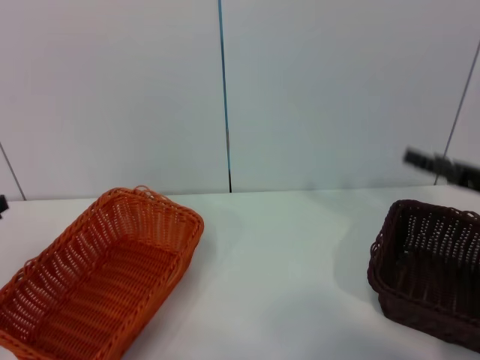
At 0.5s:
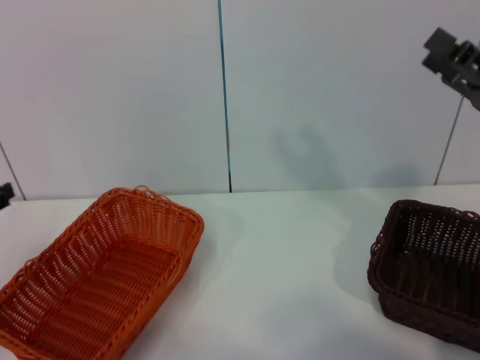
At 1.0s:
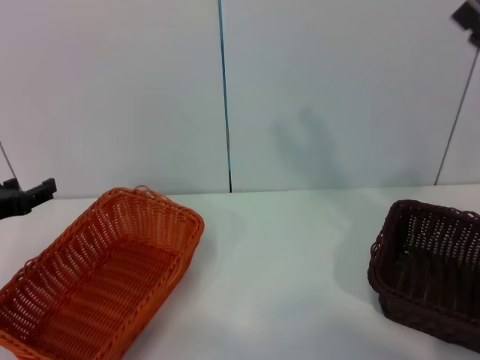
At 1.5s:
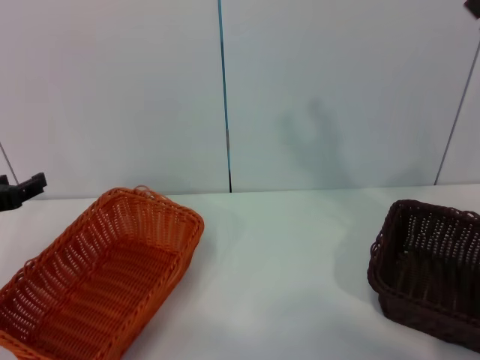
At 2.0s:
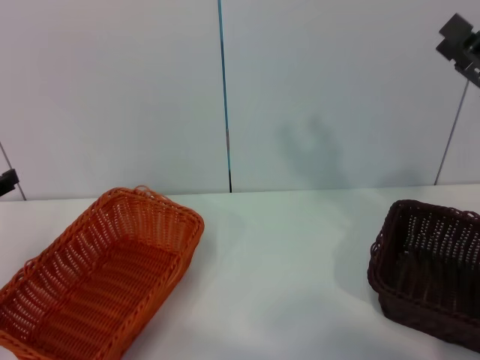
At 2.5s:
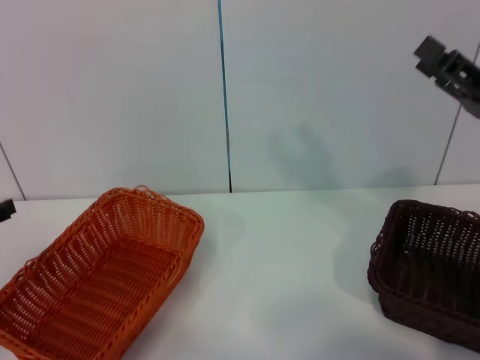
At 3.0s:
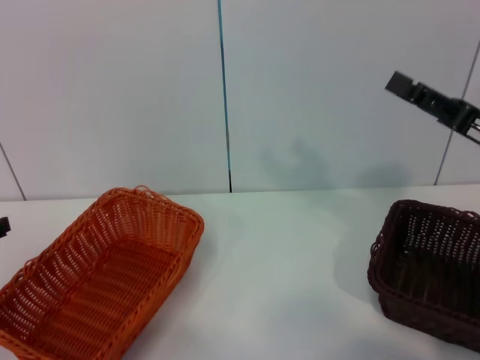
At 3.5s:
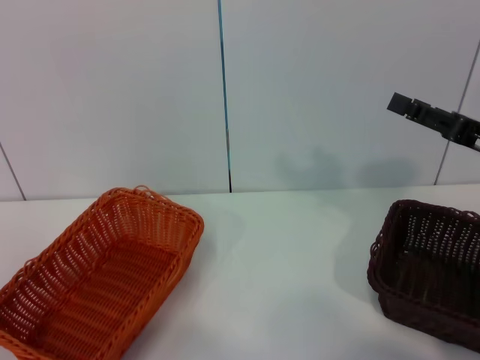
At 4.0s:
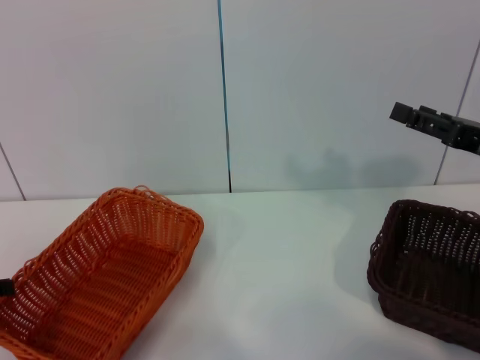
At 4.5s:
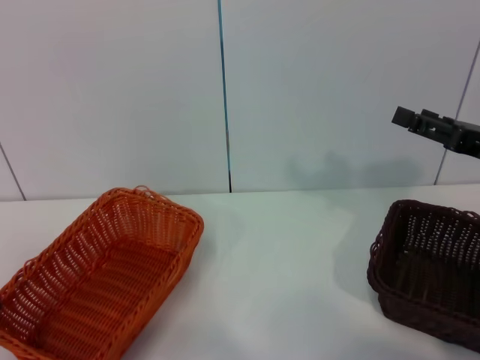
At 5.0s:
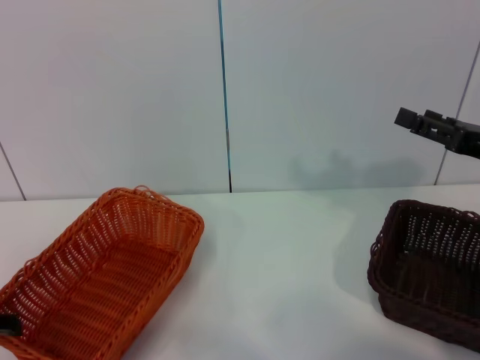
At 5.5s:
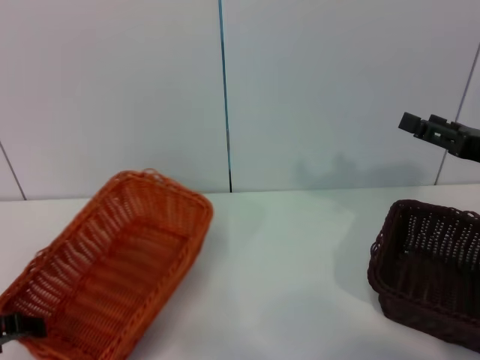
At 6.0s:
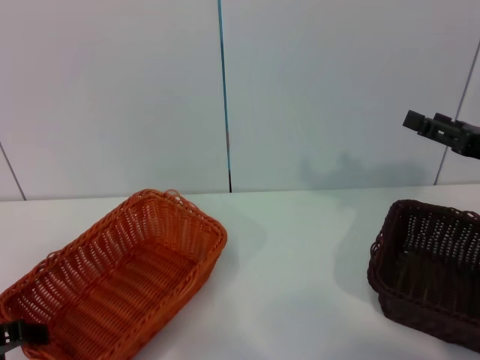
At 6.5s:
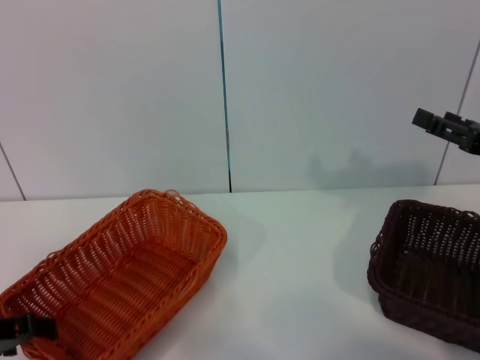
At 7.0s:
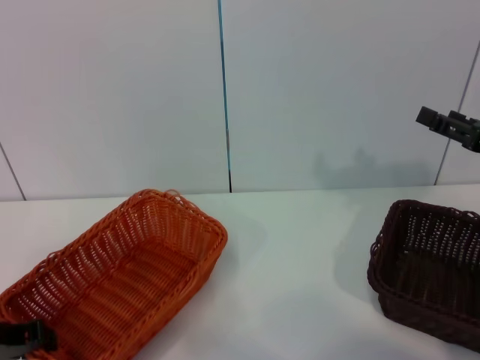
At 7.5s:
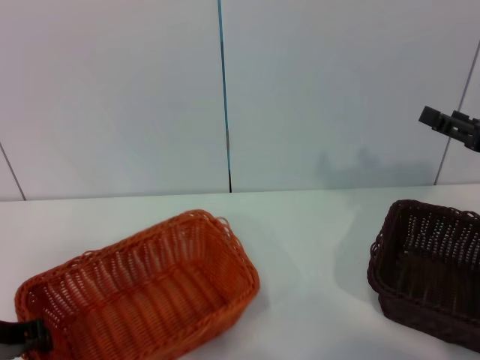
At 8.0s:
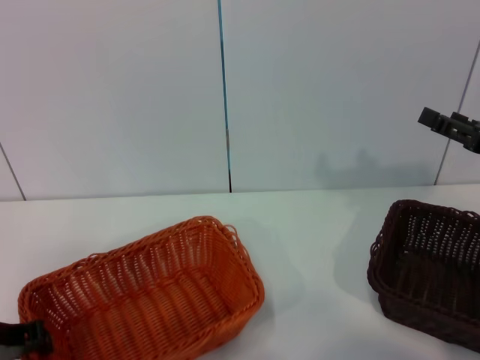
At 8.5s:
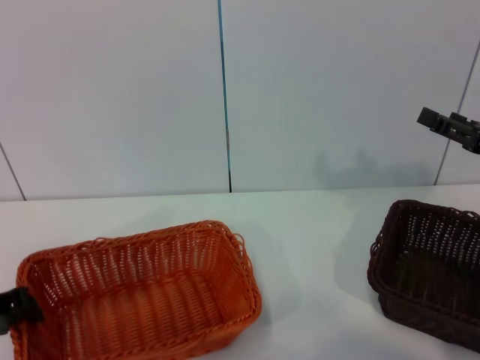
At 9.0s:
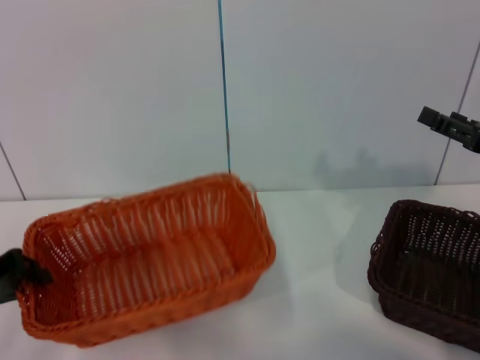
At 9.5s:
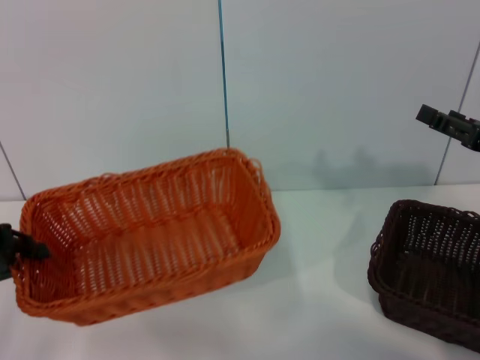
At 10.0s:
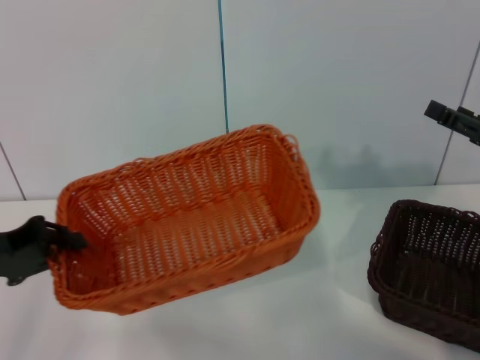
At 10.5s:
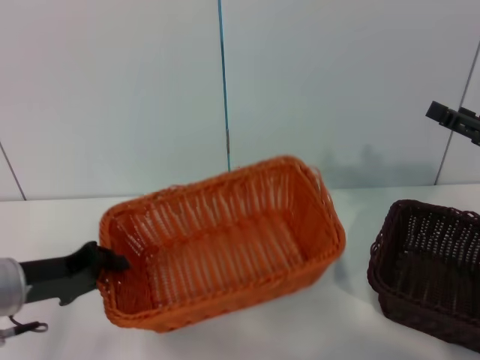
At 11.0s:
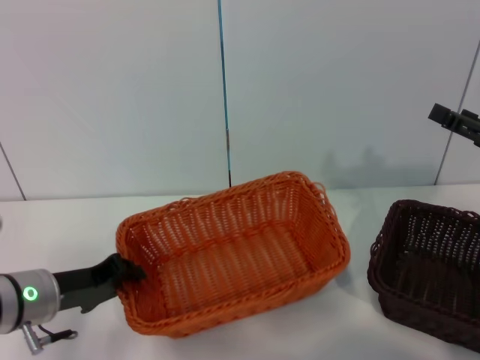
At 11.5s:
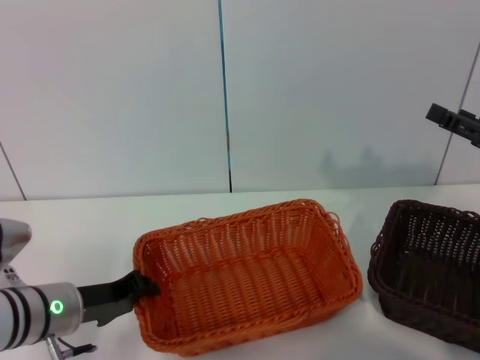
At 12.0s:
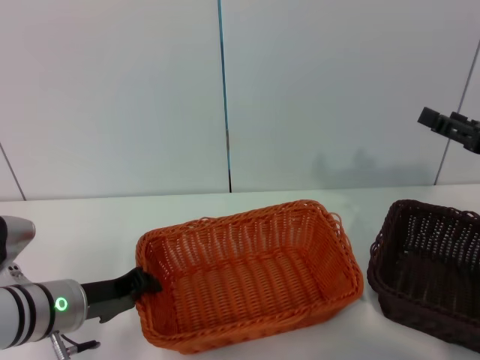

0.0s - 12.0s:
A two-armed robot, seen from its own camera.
Step, 0.0s - 9.0s: Pick up the light basket with the left gripper.
0.0s - 2.0s: The right gripper changes place by roughly 5 cm.
4.0s - 6.0s: The left gripper shifts by roughly 5 cm.
6.0s - 8.0s: The left gripper closes up.
8.0s - 10.0s: The left gripper is displaced upward by roughly 5 cm.
10.0s - 12.0s: The left gripper moves downward and to the right, approximately 15 cm.

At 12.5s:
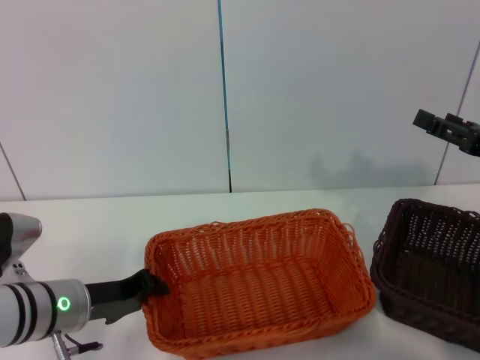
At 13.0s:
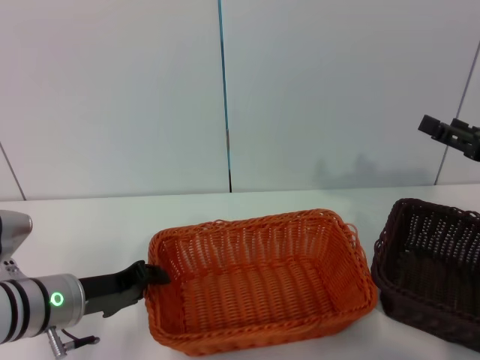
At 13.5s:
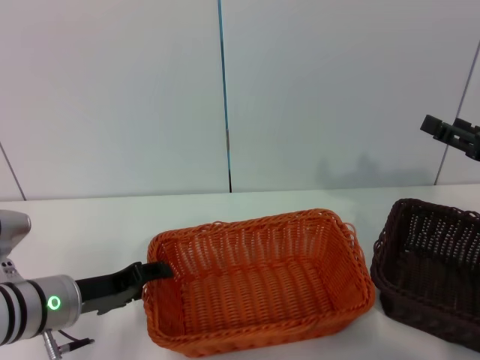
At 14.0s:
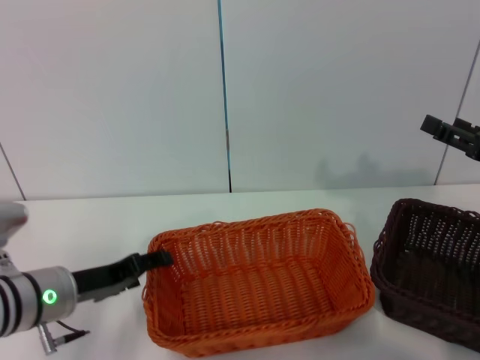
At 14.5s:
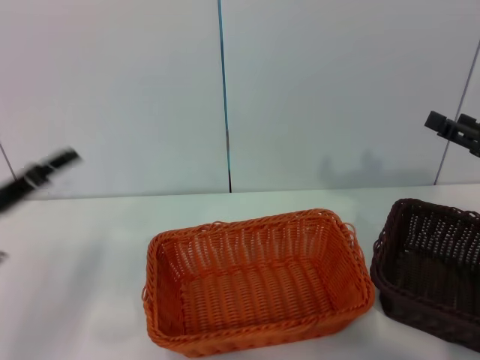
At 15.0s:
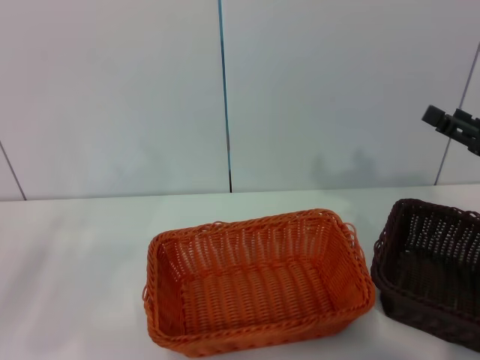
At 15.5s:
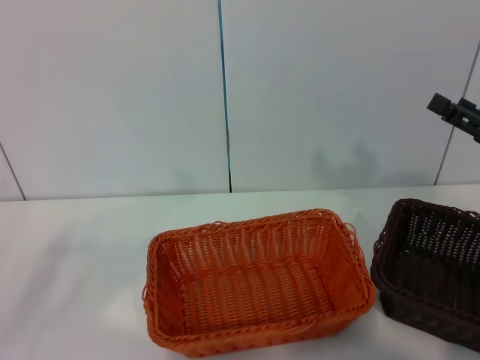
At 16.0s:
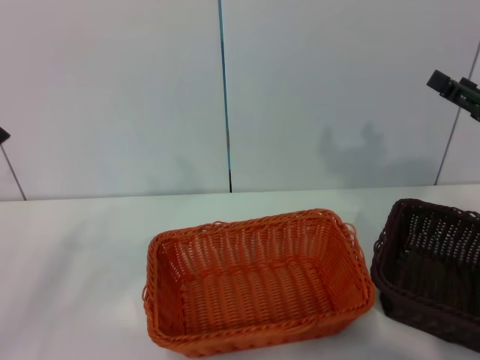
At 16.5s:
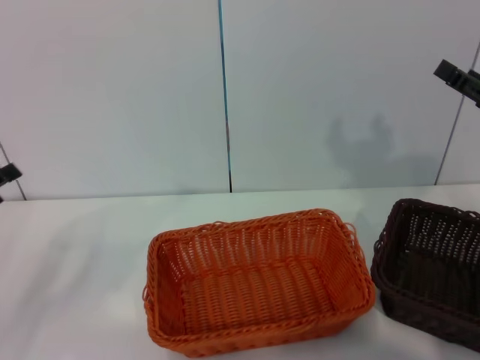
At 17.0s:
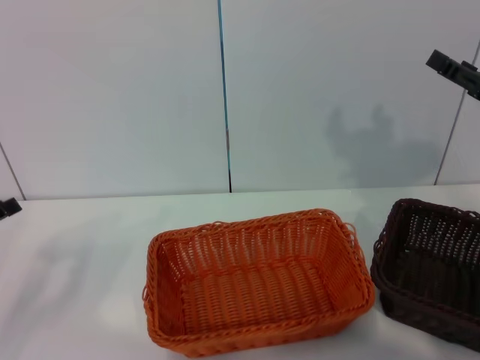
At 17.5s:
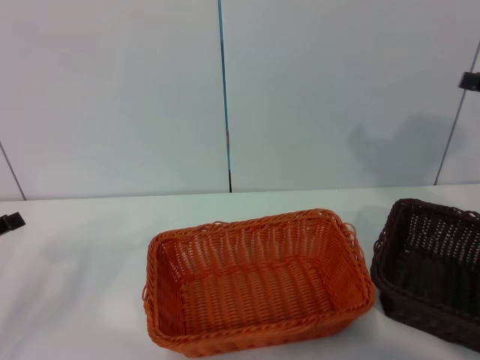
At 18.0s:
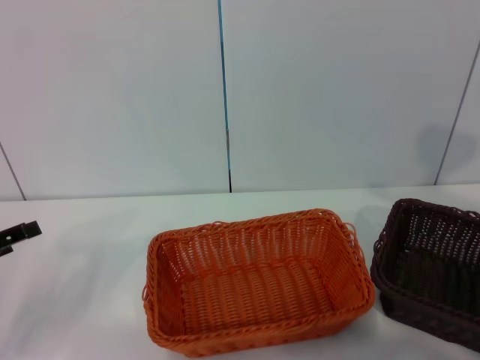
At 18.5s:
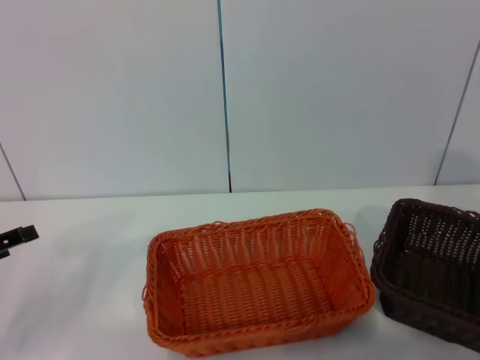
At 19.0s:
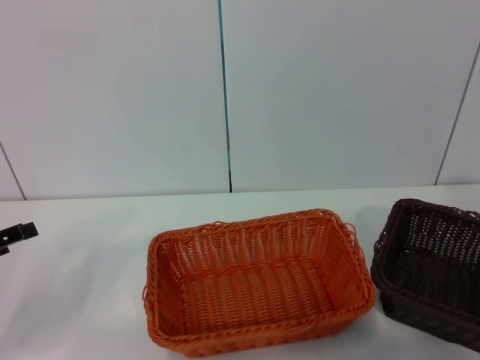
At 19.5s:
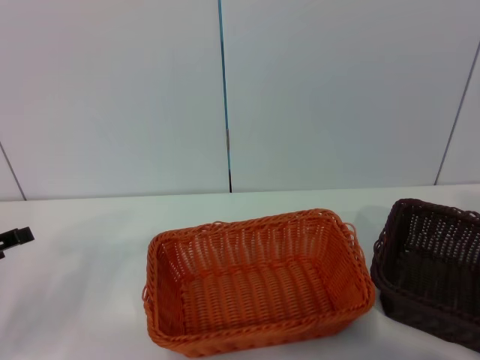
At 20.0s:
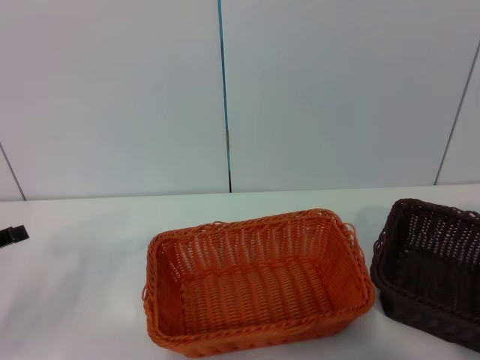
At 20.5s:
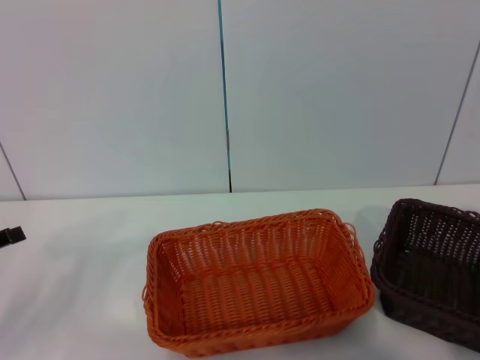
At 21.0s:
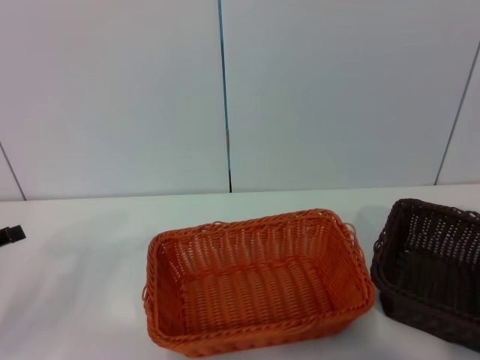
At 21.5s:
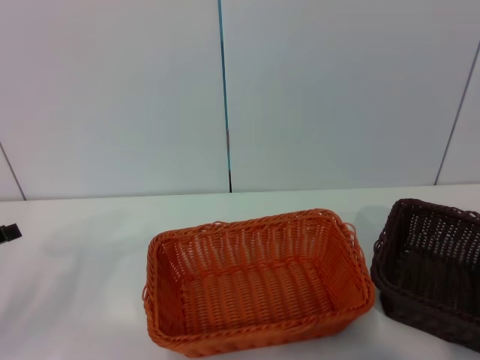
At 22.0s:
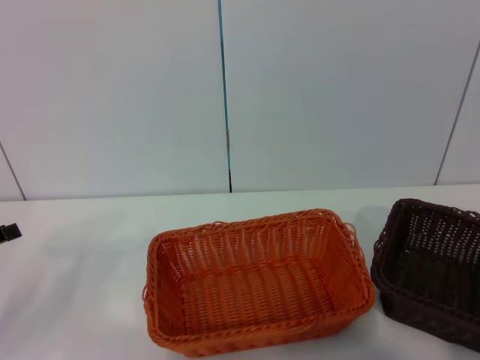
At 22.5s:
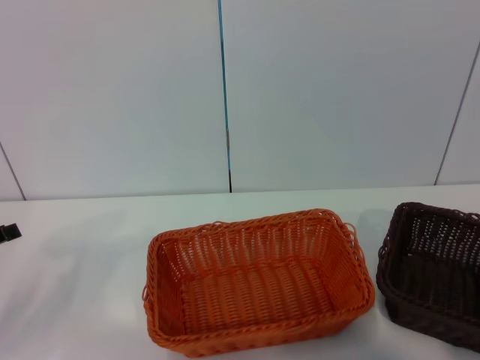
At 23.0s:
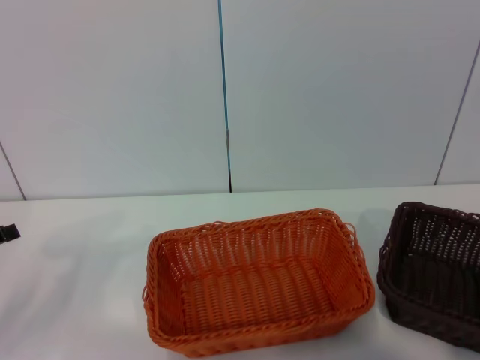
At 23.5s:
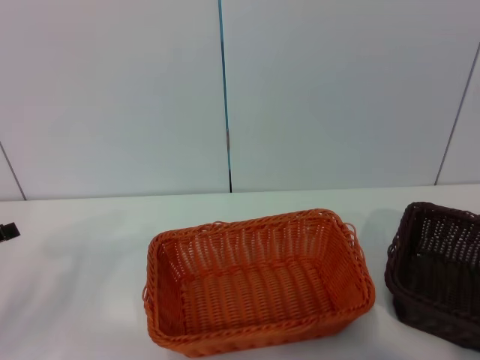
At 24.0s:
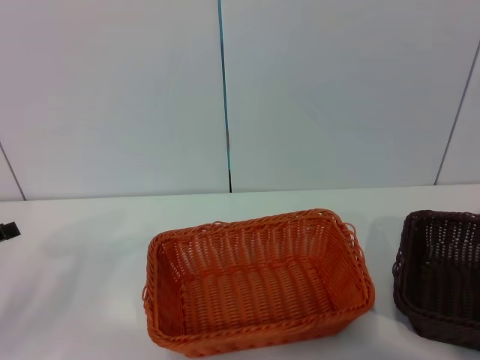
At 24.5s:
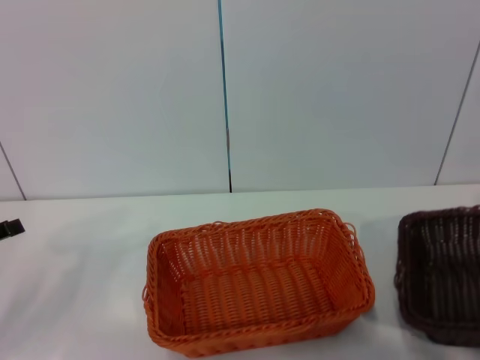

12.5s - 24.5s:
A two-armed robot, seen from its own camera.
12.5s - 14.5s: The left gripper goes roughly 10 cm to the left and upward, and opens.
14.5s - 16.5s: The left gripper goes roughly 5 cm to the left.
16.5s - 18.5s: The right gripper heads to the right, backward and upward, covering roughly 15 cm.
20.5s - 22.5s: The right gripper closes up.
22.5s - 24.5s: The right gripper moves upward, roughly 5 cm.

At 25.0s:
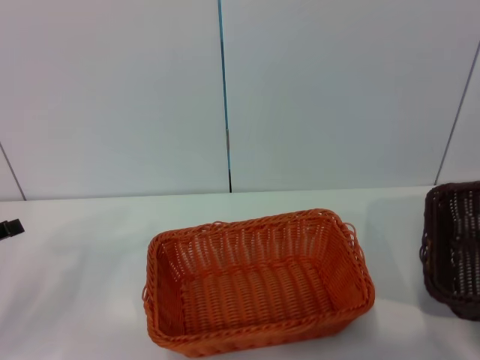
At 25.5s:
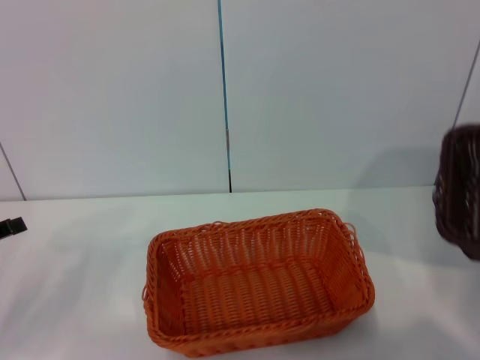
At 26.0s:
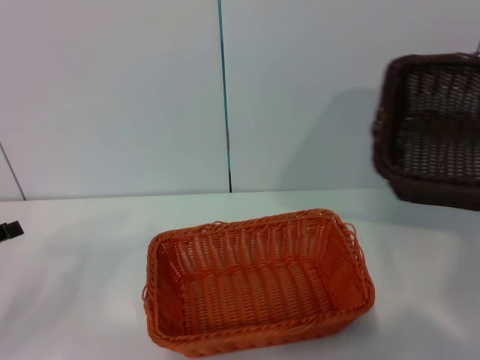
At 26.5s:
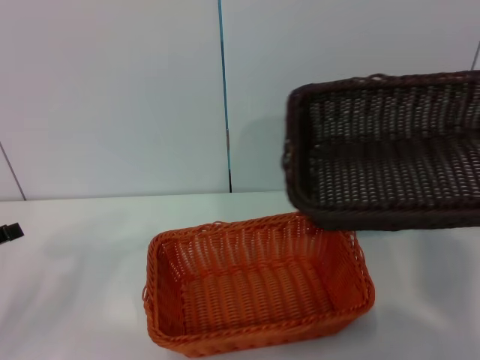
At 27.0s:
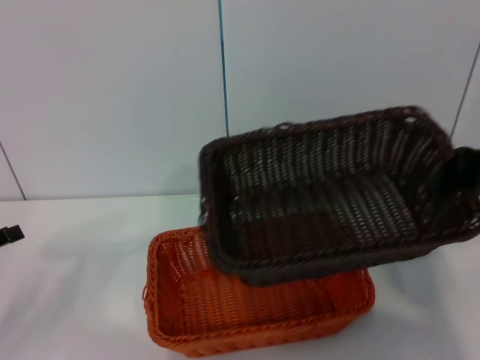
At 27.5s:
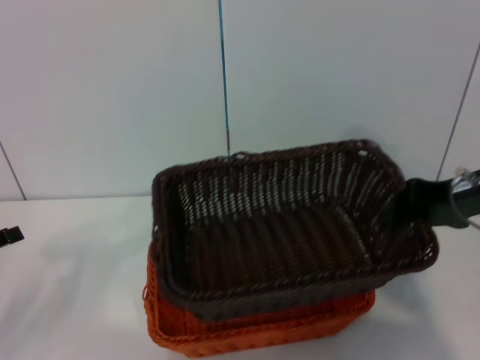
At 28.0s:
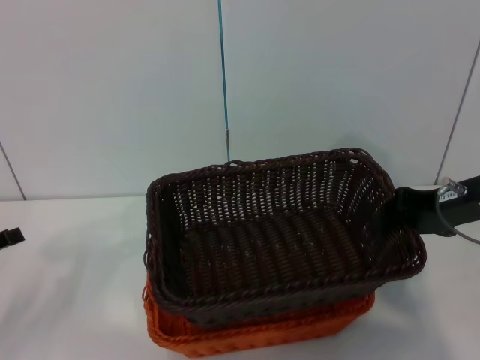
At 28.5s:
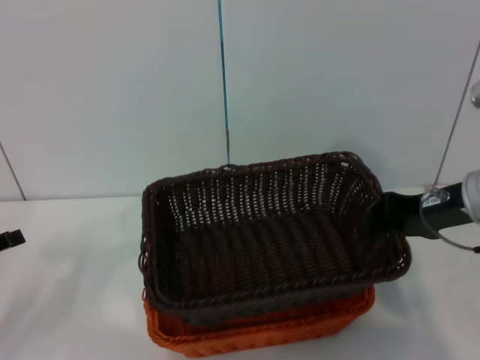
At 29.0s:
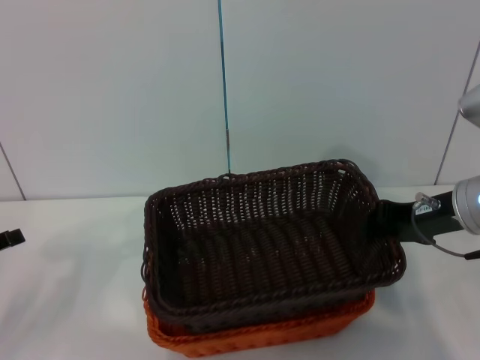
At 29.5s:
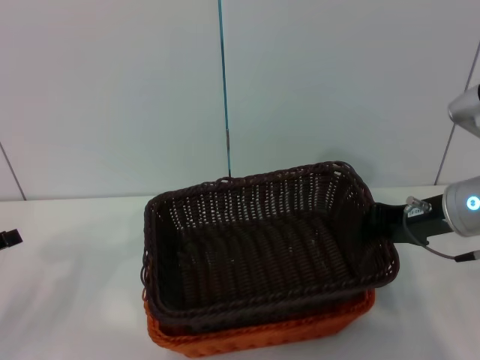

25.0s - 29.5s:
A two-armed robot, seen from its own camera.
25.0s - 27.0s: The right gripper is displaced to the left and forward by some 20 cm.
27.0s - 29.5s: The right gripper goes roughly 10 cm downward and to the left.
